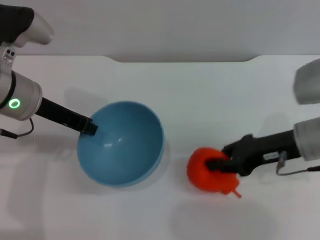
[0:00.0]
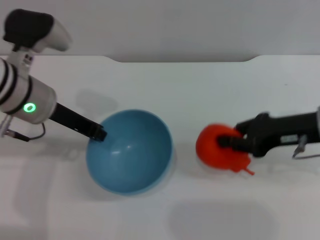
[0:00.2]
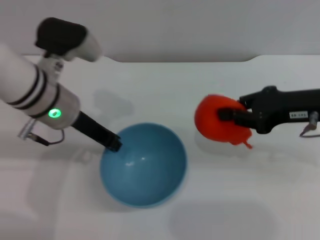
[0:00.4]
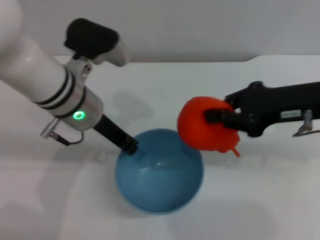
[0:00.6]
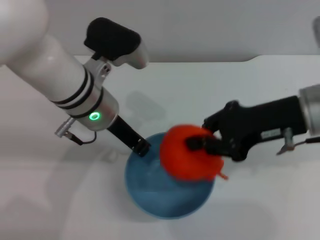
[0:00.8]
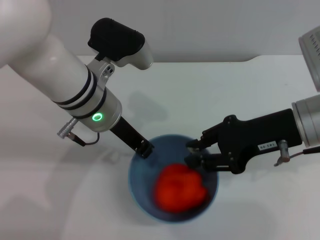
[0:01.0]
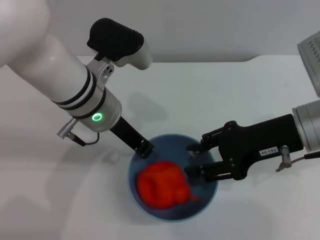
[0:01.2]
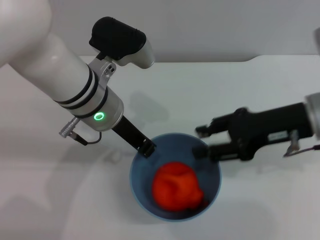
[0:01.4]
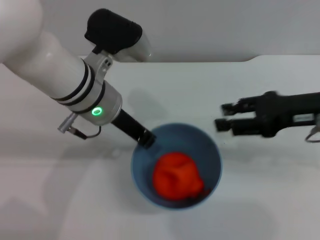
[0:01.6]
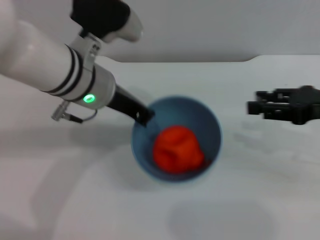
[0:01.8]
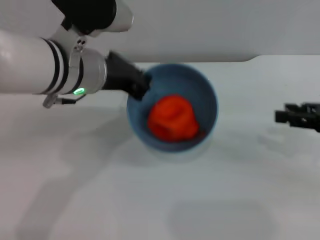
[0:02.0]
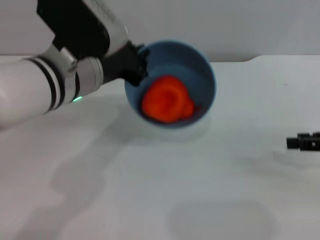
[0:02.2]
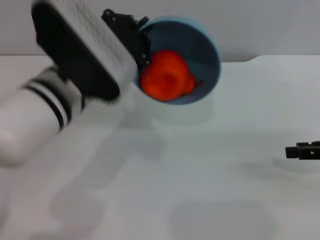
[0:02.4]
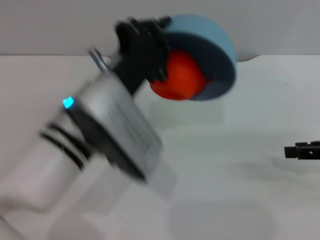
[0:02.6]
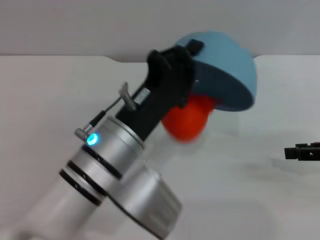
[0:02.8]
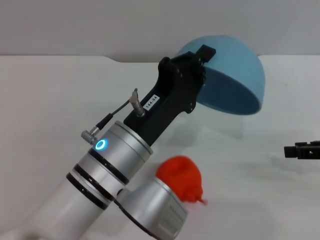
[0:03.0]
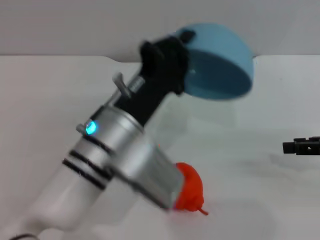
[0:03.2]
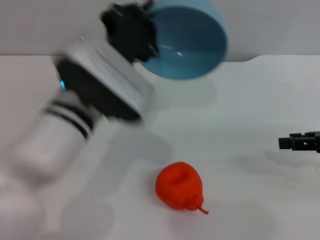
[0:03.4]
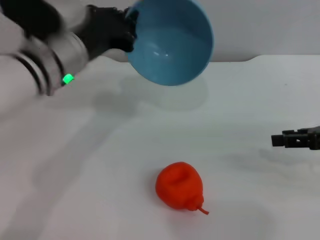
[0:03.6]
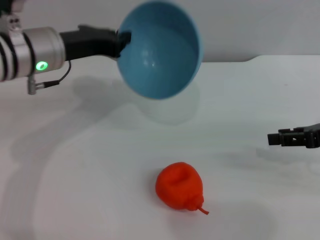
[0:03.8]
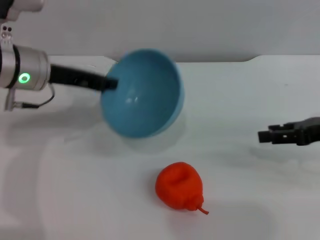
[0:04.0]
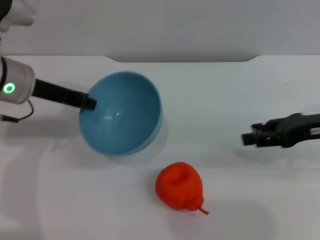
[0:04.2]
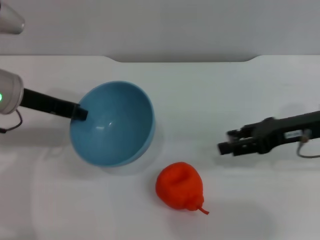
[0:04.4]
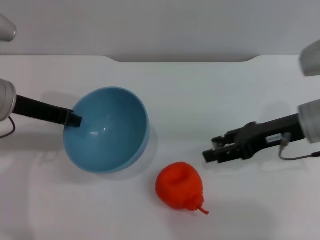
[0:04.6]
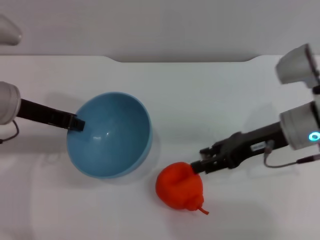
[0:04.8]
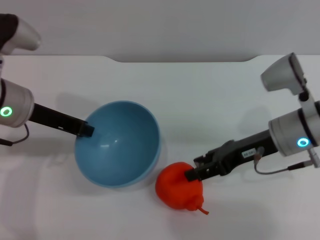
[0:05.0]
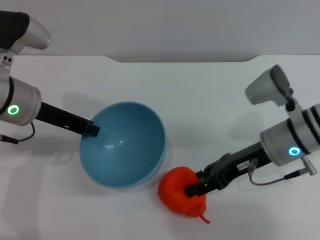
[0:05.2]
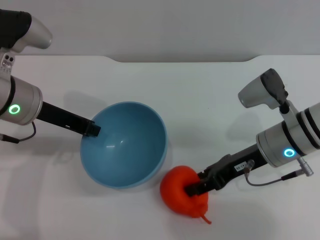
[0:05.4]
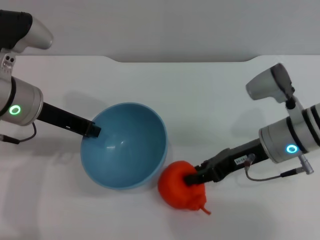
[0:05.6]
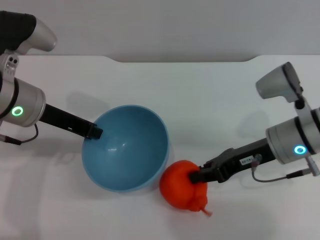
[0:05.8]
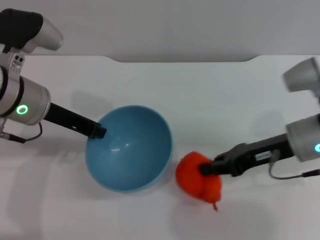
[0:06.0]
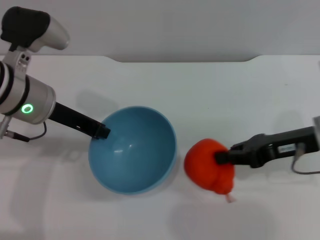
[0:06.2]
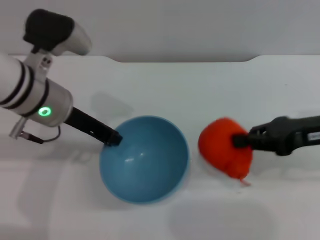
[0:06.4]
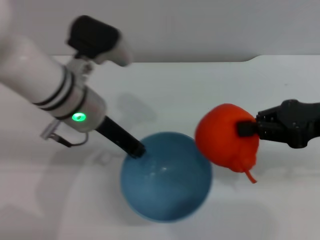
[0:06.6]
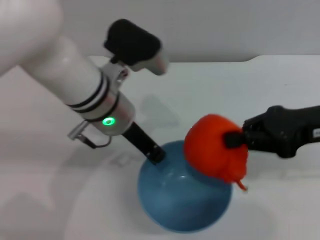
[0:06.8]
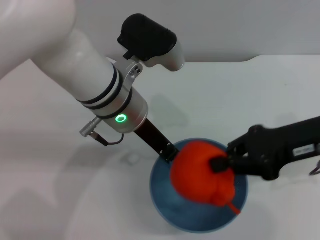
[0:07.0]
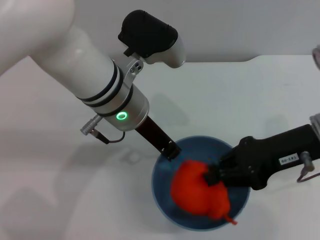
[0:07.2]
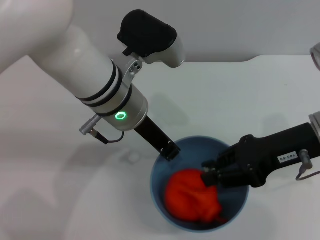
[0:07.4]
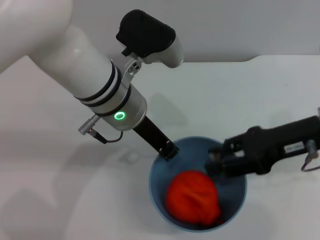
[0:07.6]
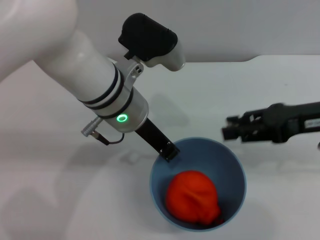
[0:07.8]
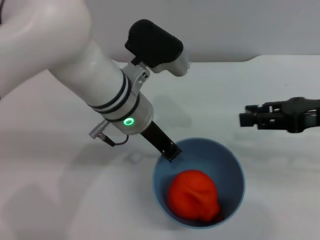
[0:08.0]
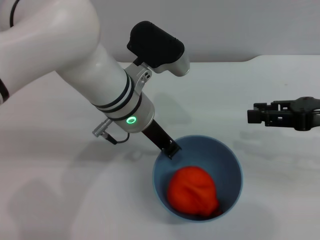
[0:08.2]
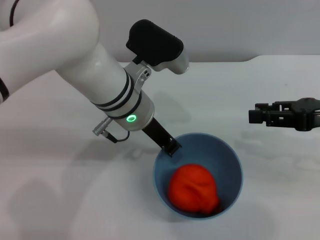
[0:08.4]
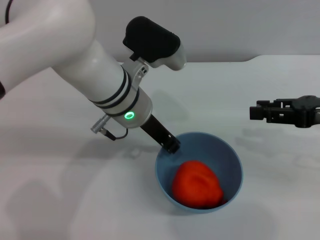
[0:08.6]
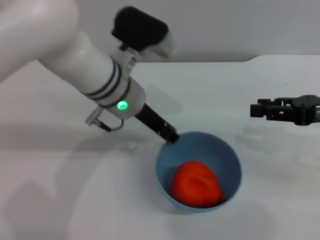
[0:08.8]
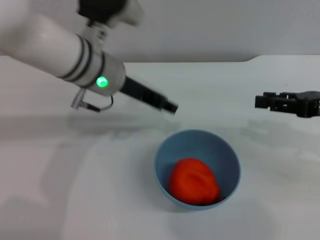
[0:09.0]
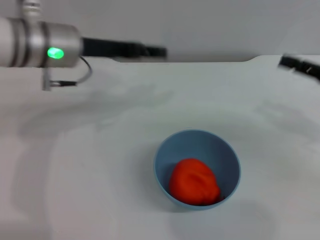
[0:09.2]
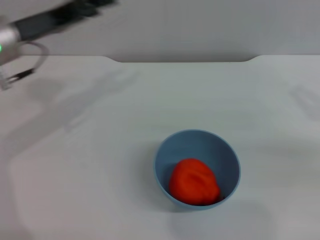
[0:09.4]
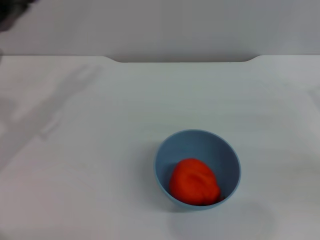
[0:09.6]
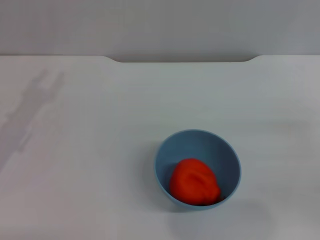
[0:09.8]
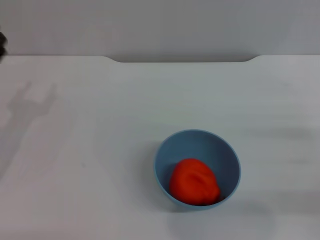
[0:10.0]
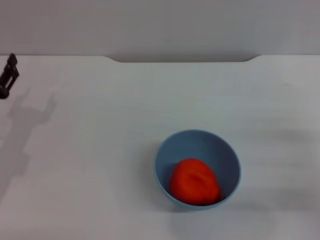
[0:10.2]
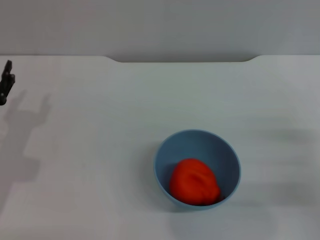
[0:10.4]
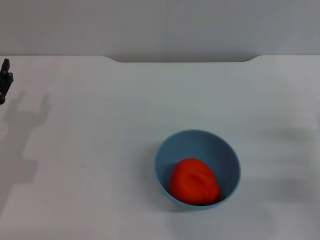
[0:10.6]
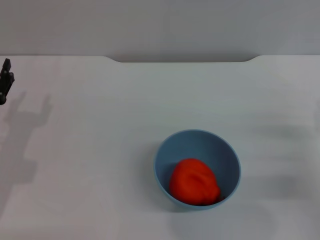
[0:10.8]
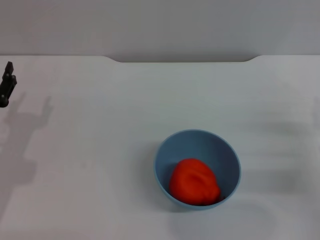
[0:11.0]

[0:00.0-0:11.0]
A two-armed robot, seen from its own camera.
Task of the whole recording: put the orange into the blue bowl and pour it out repeatedly.
Step, 0:00.4 to 0:01.2: Place the orange into the bowl.
Step, 0:01.6 to 0:03.0: Pour the orange out of the bowl.
Step, 0:03.2 to 0:06.4: Pick up the orange with the right gripper.
Step, 0:06.6 to 0:07.8: Place the orange into the bowl.
Step, 0:08.0 to 0:09.0: Place the bowl on the table.
0:00.0 to 0:01.6: The right gripper shifts roughly 5 cm upward, and closes, then opens again. Meanwhile the left gripper heads to the right, covering approximately 10 cm.
0:01.6 to 0:03.2: The left gripper shifts roughly 10 cm backward. The right gripper shifts approximately 10 cm to the right.
0:03.2 to 0:04.8: Both grippers travel together to the left and forward, about 15 cm.
0:04.8 to 0:06.2: The right gripper closes up.
0:06.2 to 0:07.8: The right gripper moves upward, about 5 cm, and opens up. Meanwhile the left gripper goes about 10 cm to the right.
0:07.8 to 0:09.4: The left gripper shifts about 15 cm to the left, and opens its fingers. The right gripper shifts approximately 10 cm to the right.
0:09.4 to 0:11.0: The right gripper moves downward, about 10 cm, while the left gripper is displaced downward, backward and to the left by roughly 20 cm.
